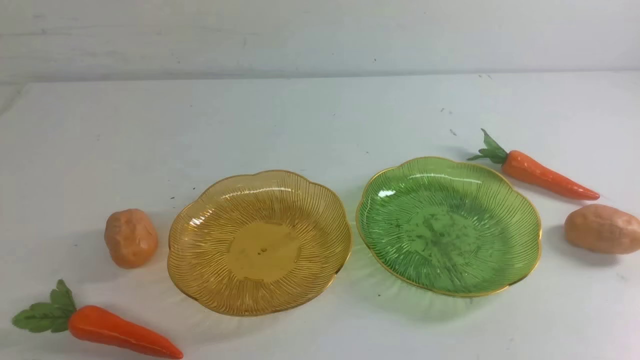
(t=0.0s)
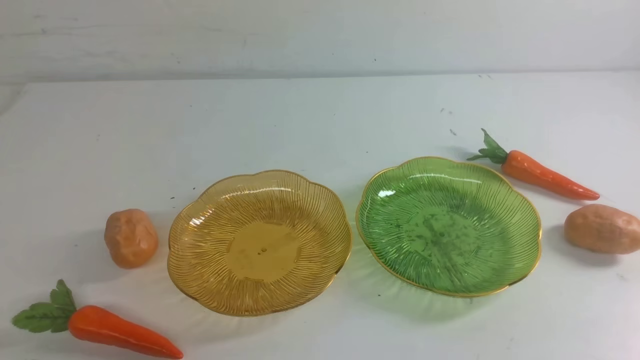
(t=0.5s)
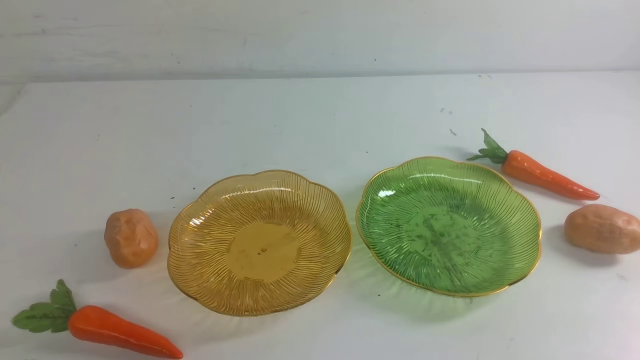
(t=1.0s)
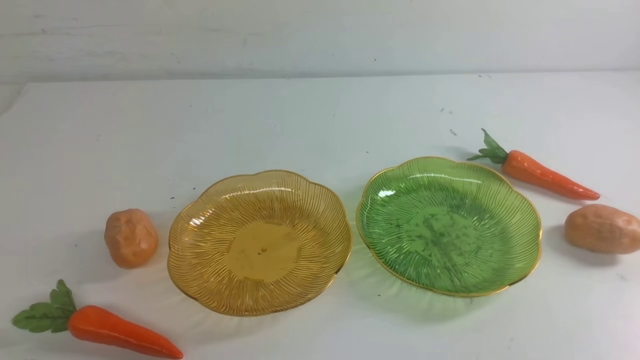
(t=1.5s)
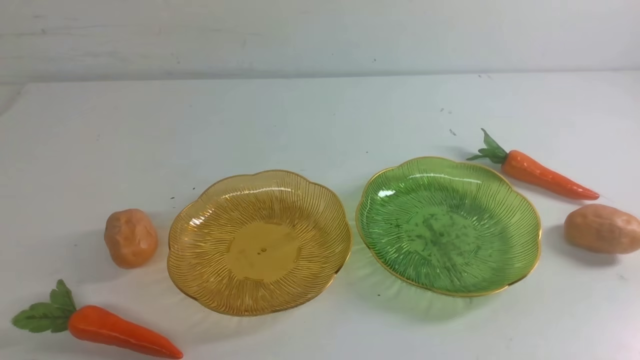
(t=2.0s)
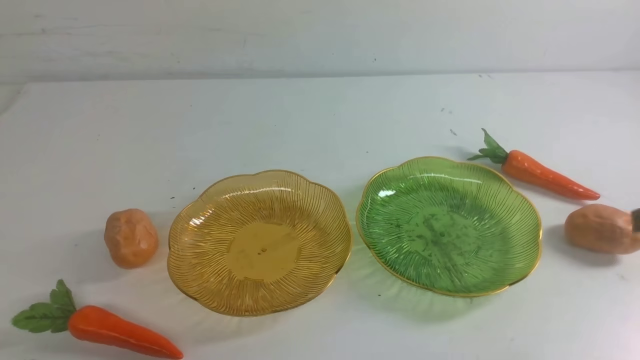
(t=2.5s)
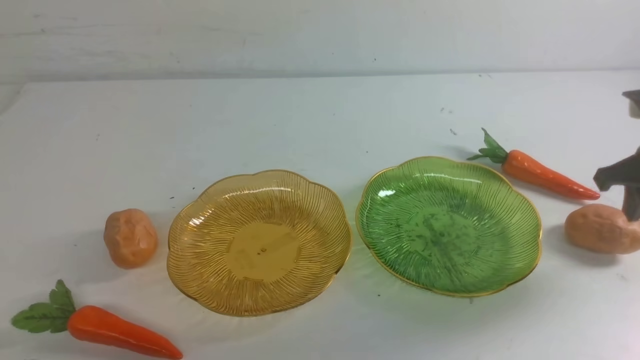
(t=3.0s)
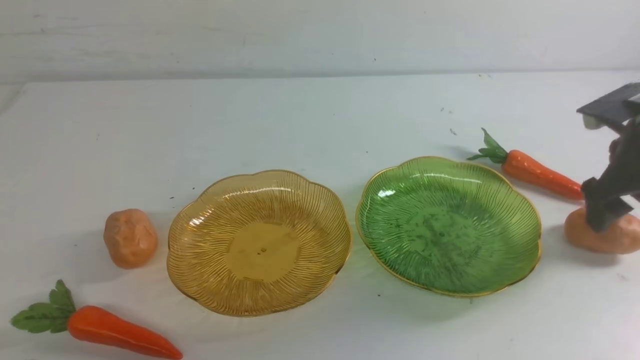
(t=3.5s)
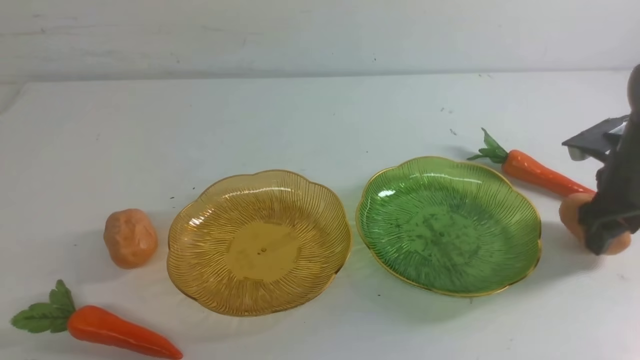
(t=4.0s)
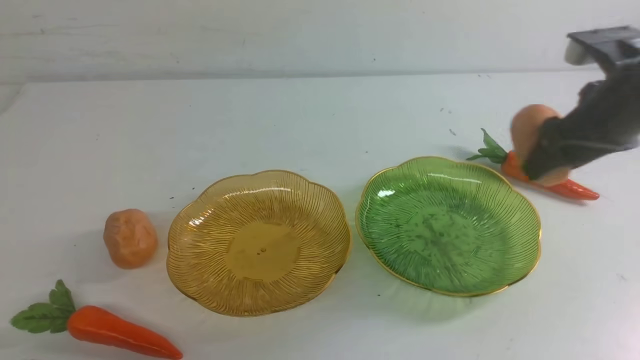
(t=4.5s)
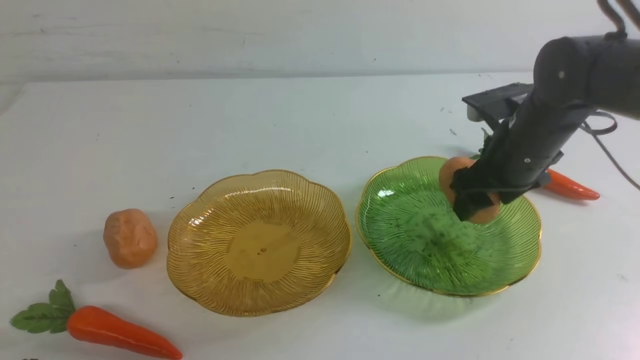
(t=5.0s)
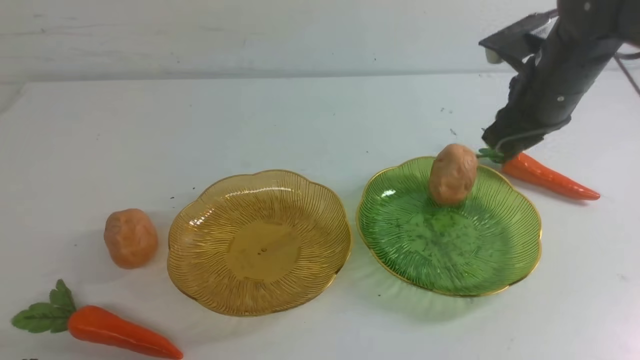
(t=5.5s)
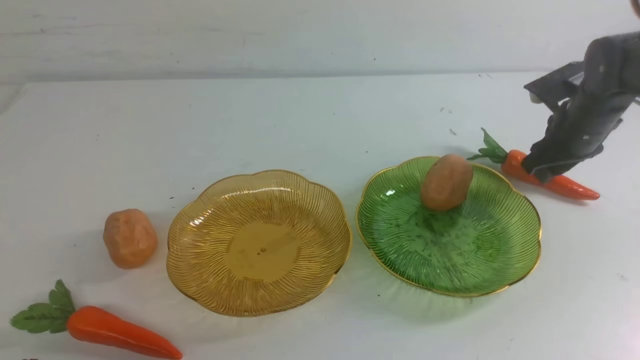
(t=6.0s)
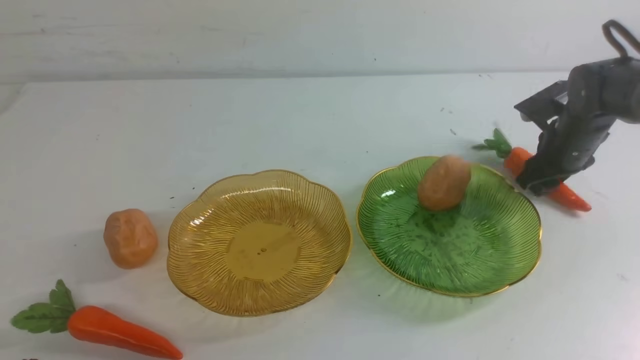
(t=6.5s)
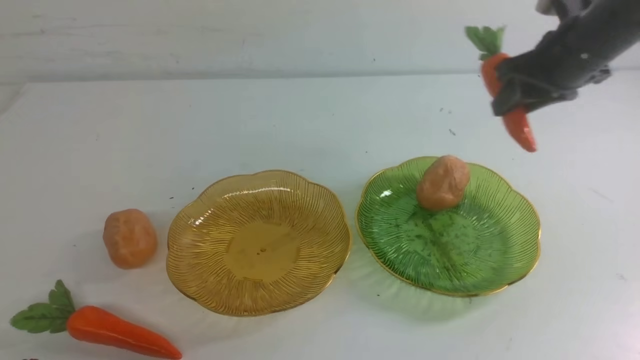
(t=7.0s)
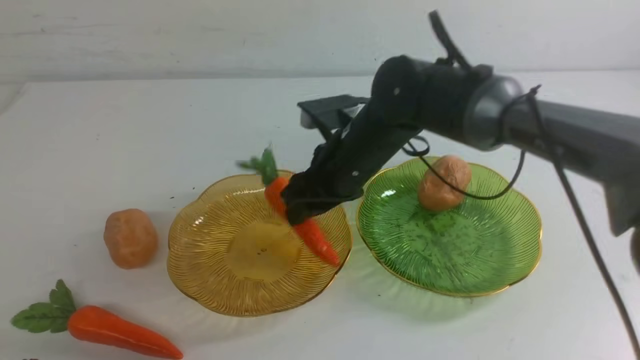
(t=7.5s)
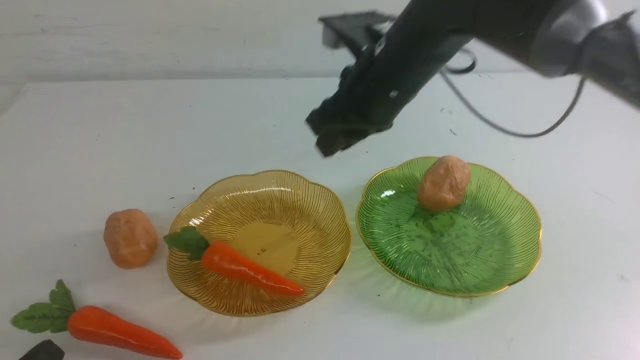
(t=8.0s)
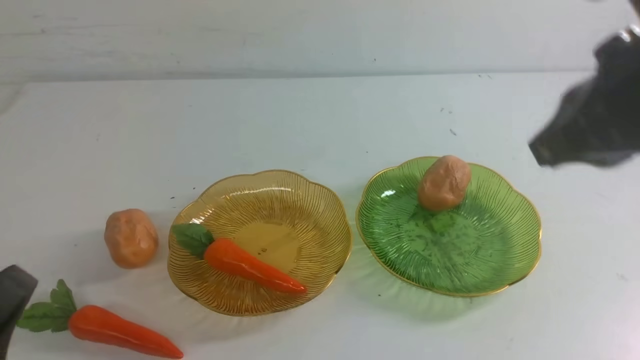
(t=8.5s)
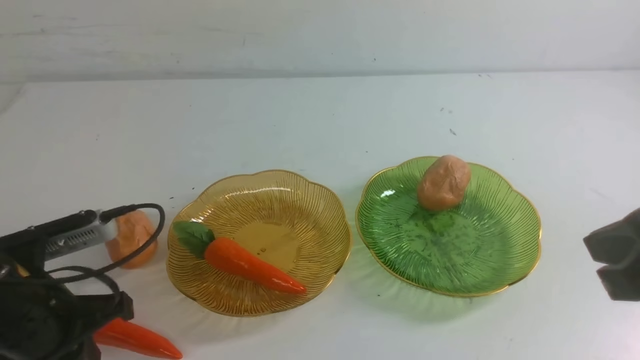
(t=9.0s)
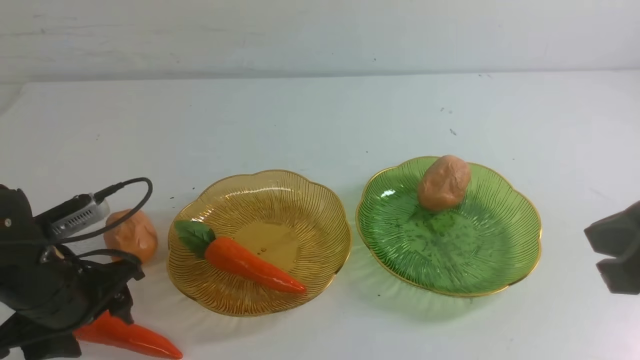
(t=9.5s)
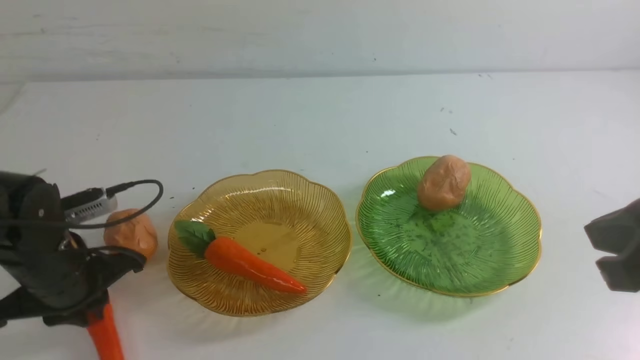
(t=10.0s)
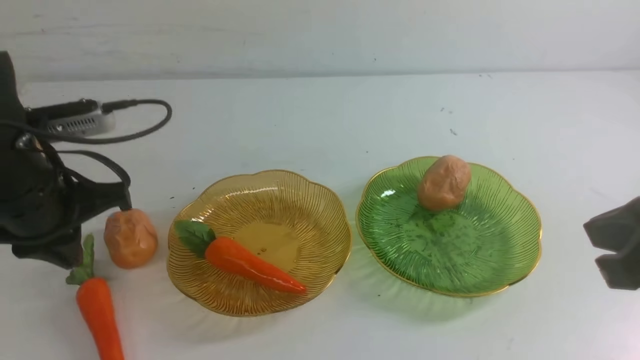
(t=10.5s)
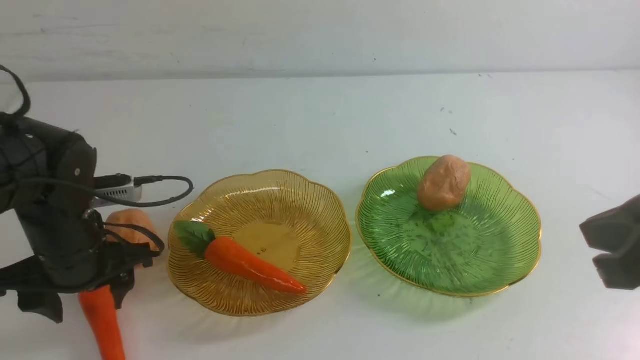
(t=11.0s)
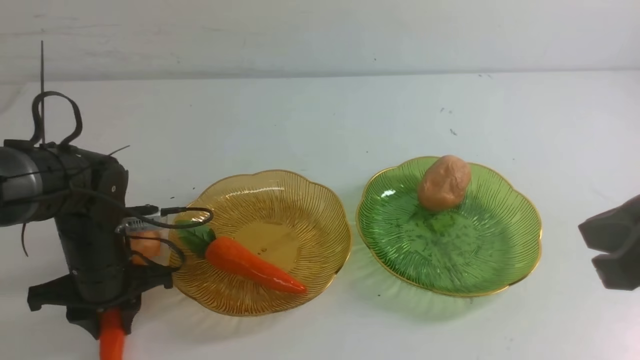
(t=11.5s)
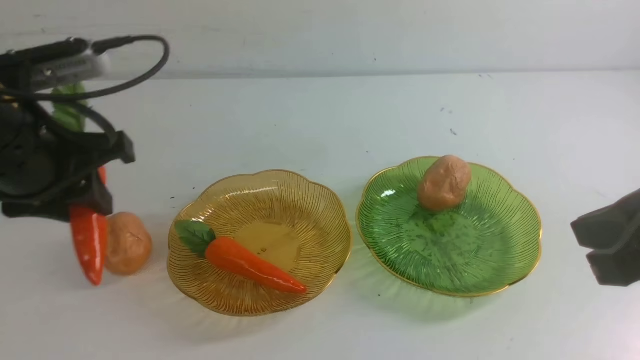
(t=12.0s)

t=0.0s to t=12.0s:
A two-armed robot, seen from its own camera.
Step, t=0.0s to t=5.0s: Grab a potato with your right arm and put it on the right plate.
Step, t=5.5s to t=7.5s: use the right arm to grab a carrot and put it into the left plate.
t=2.0s to t=4.0s: The right gripper heads forward, covering approximately 30 cm, and opens its fingers.
t=4.0s to t=6.0s: The right gripper travels forward and downward by about 10 cm, moves about 10 cm to the left and comes back, and closes, then reopens.
t=6.0s to t=8.0s: The right gripper travels to the left and upward by some 25 cm.
t=8.0s to t=10.0s: The right gripper goes roughly 25 cm backward and to the right, and closes up. Meanwhile the left gripper travels forward by about 20 cm, and opens, then closes again.
t=10.0s to t=12.0s: The left gripper travels to the right and forward by approximately 10 cm, reaches approximately 10 cm downward, then returns, and opens.

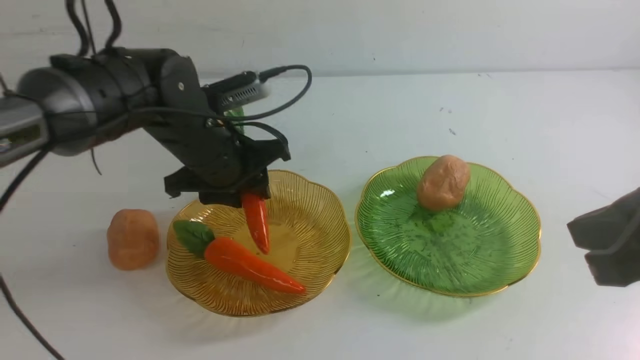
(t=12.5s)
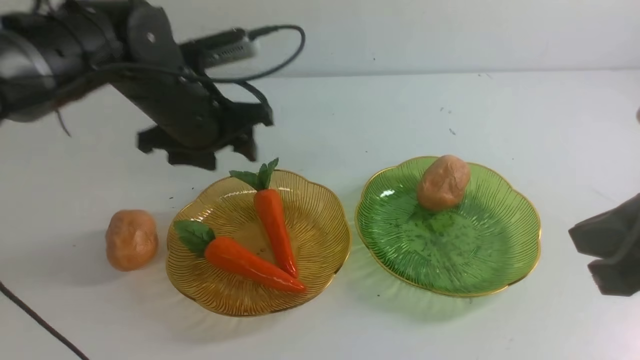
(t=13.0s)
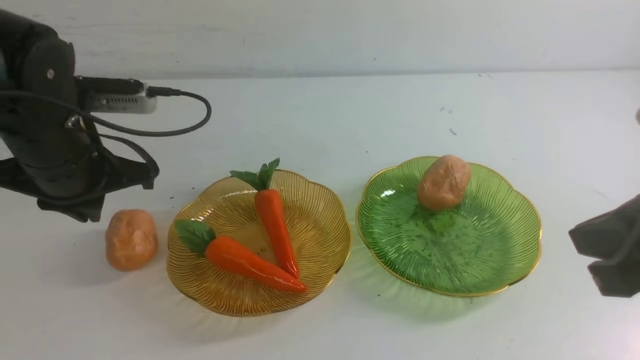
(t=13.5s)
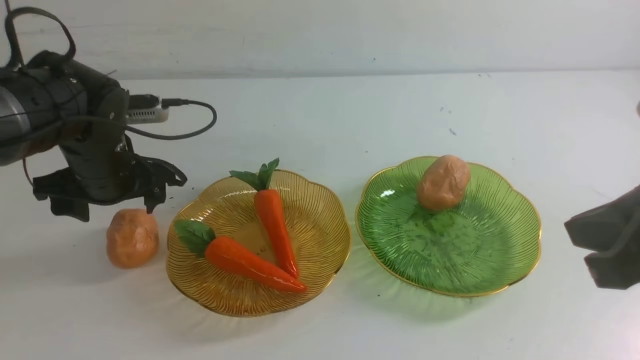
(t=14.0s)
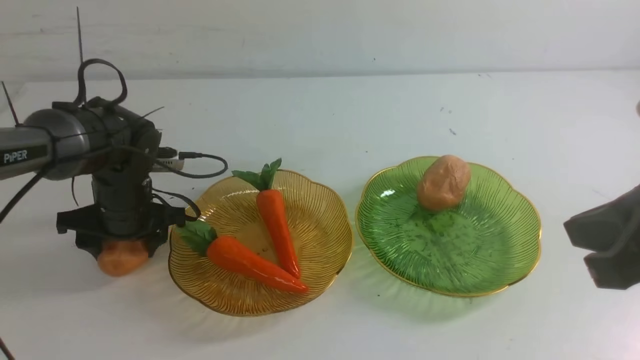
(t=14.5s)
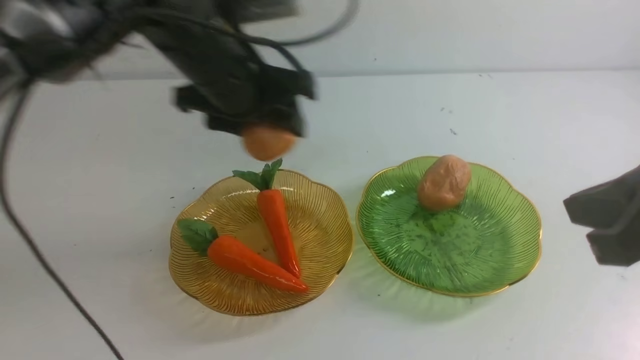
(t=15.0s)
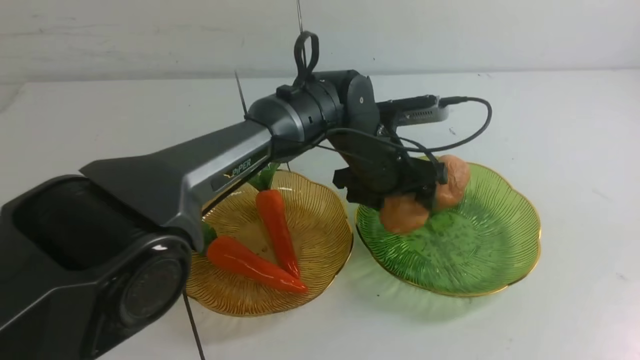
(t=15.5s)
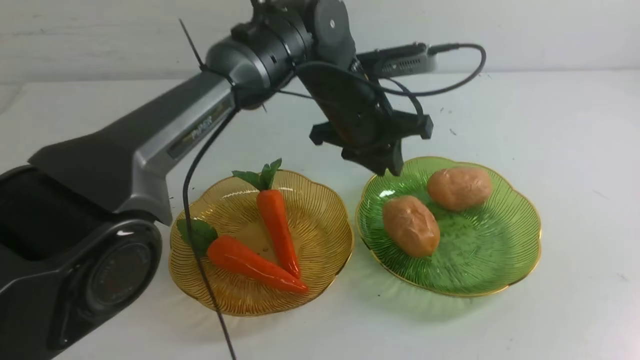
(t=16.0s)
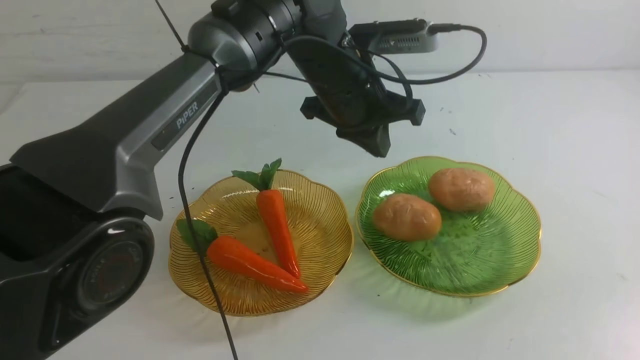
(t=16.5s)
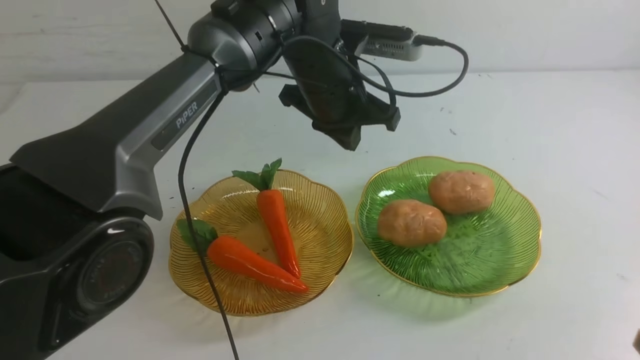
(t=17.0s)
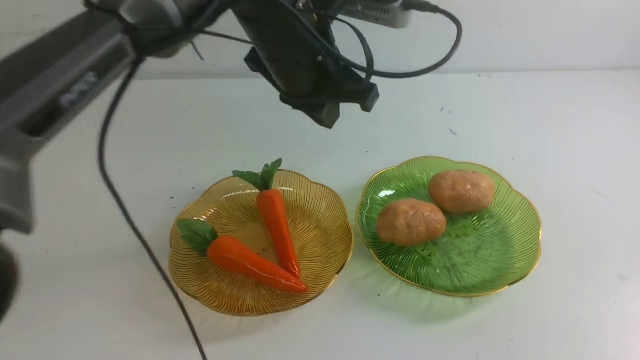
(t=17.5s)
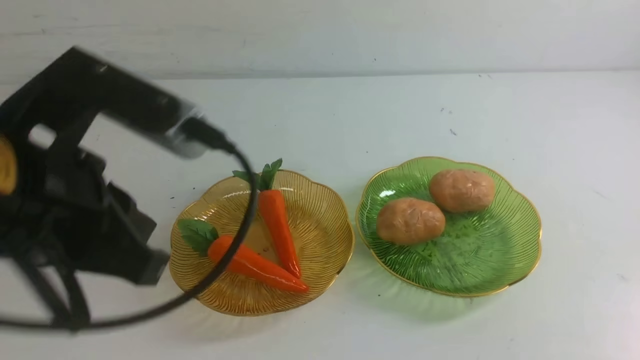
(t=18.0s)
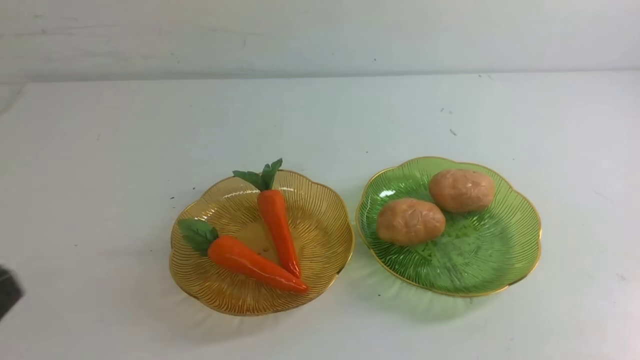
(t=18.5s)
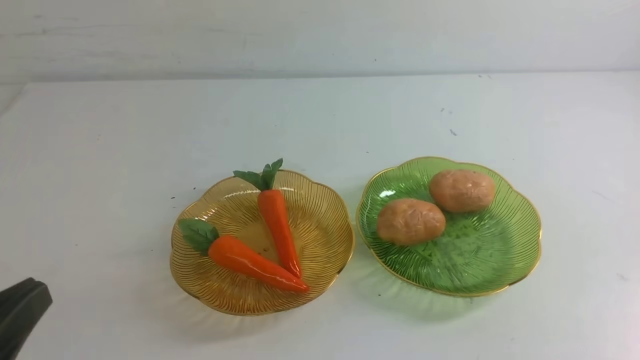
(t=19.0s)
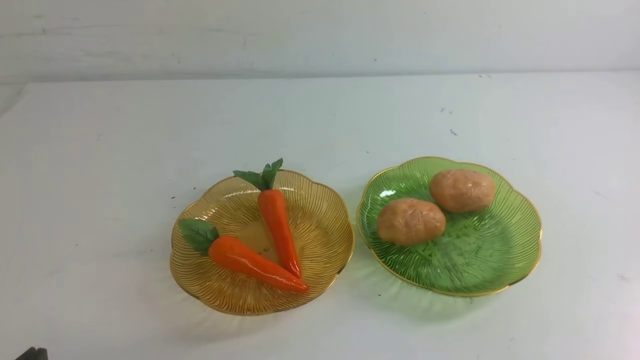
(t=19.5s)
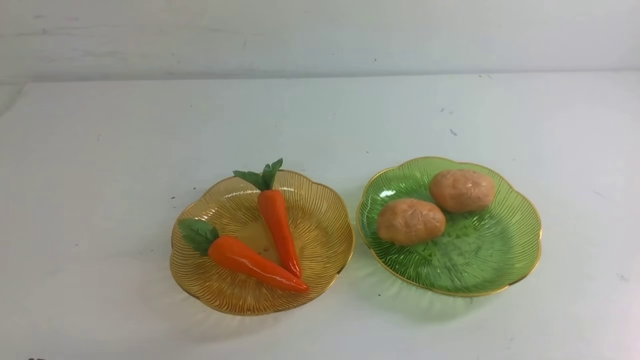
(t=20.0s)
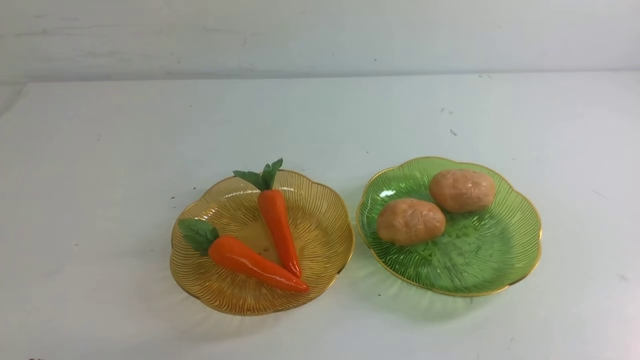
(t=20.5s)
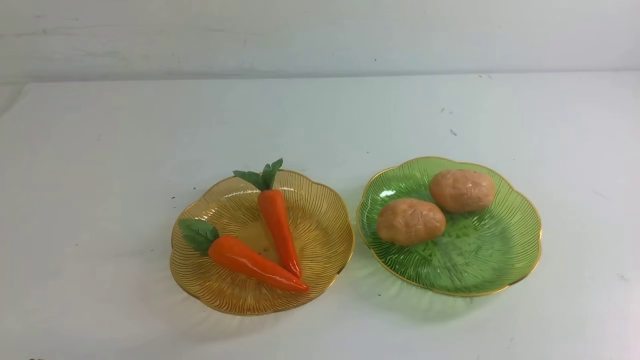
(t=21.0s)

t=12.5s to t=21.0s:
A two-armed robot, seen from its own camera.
Step, t=13.0s to t=15.5s: Grab a potato with your left arm and put it on the right plate.
t=12.5s to t=14.5s: The left gripper is displaced to the left by about 10 cm, travels upward and back again, roughly 10 cm each way, and closes, then reopens.
t=14.5s to t=16.5s: The left gripper travels to the right and upward by approximately 25 cm, and closes. The right gripper is displaced downward, backward and to the right by about 15 cm.
t=16.5s to t=19.0s: The left gripper heads backward and to the left, covering roughly 40 cm, while the right gripper is displaced downward by some 5 cm.
t=19.0s to t=21.0s: Both grippers stay put.
